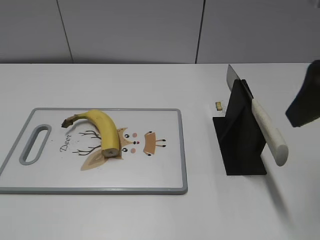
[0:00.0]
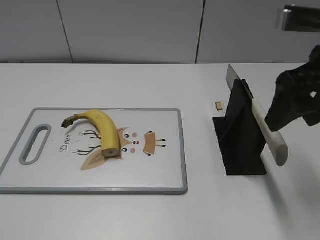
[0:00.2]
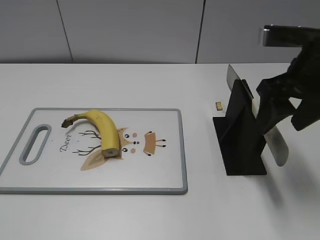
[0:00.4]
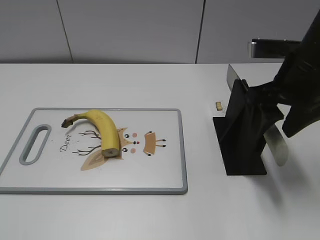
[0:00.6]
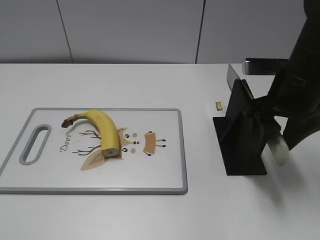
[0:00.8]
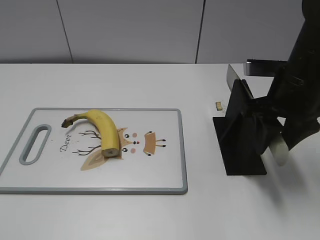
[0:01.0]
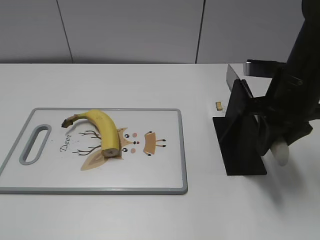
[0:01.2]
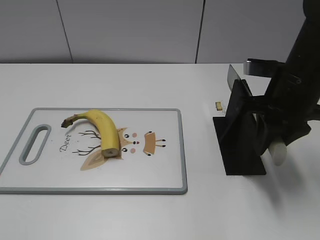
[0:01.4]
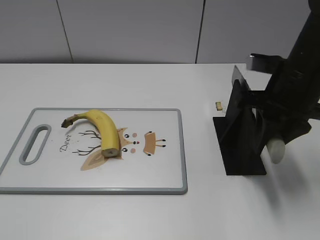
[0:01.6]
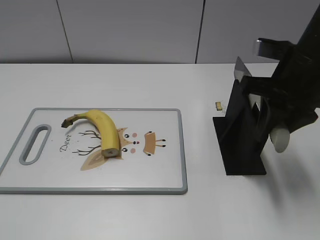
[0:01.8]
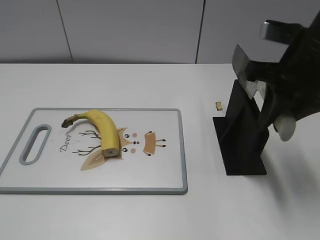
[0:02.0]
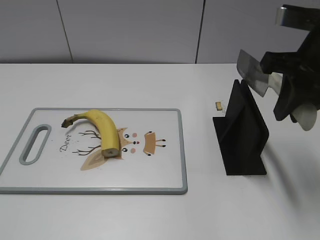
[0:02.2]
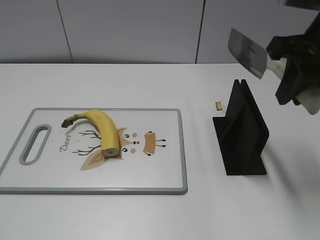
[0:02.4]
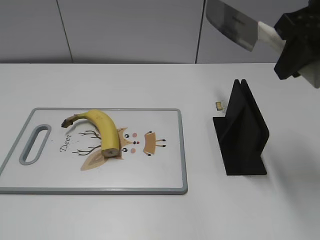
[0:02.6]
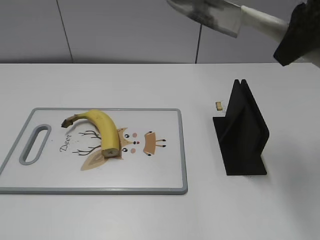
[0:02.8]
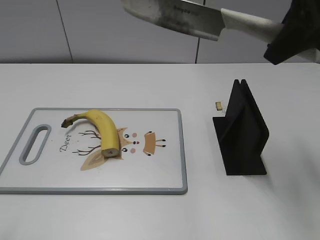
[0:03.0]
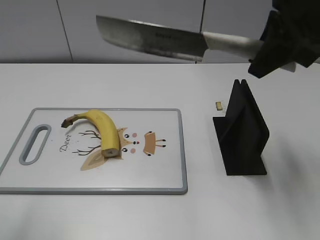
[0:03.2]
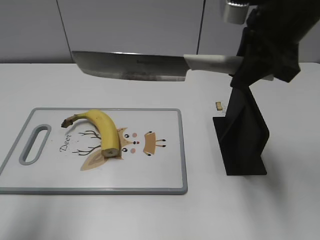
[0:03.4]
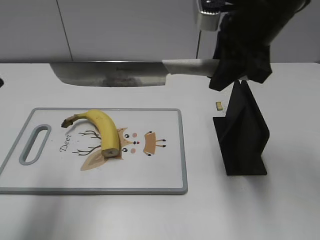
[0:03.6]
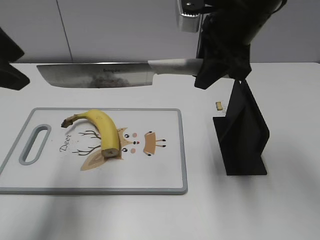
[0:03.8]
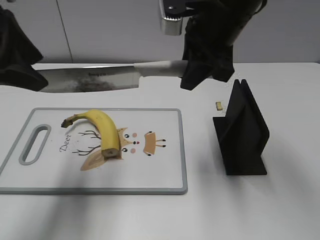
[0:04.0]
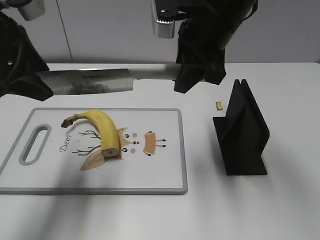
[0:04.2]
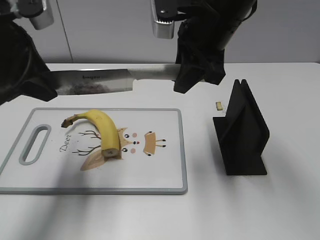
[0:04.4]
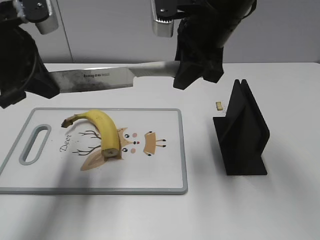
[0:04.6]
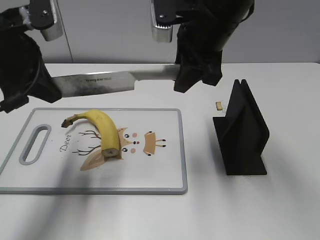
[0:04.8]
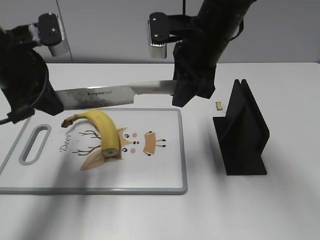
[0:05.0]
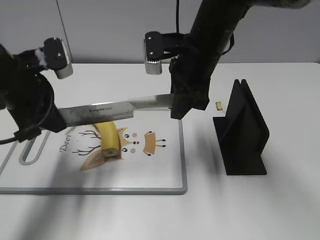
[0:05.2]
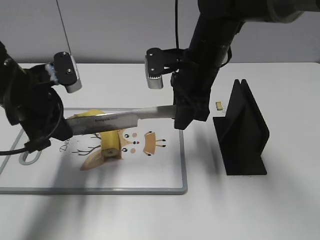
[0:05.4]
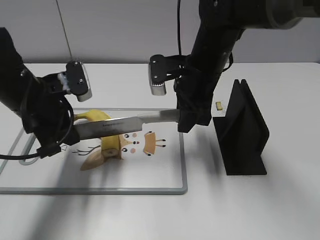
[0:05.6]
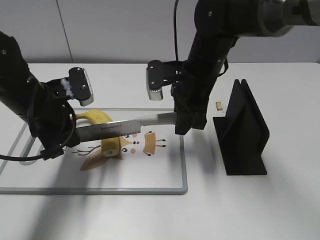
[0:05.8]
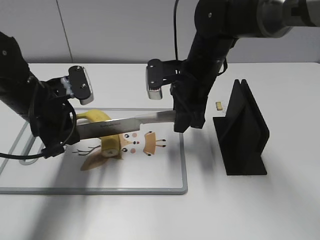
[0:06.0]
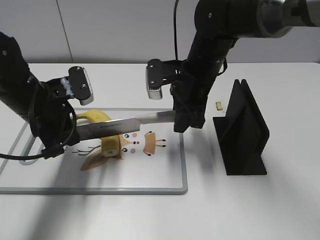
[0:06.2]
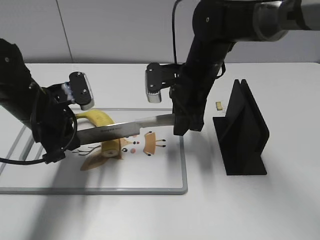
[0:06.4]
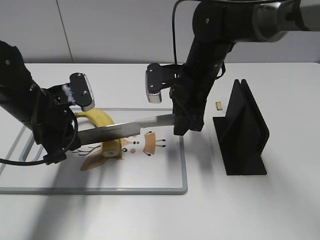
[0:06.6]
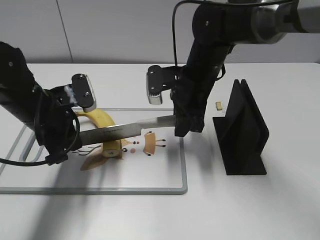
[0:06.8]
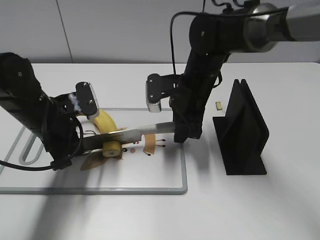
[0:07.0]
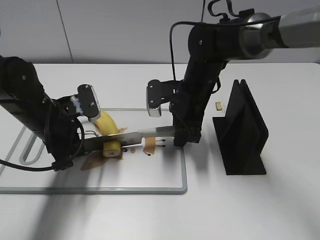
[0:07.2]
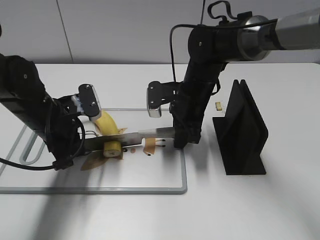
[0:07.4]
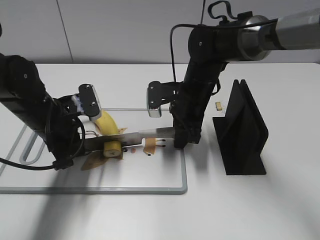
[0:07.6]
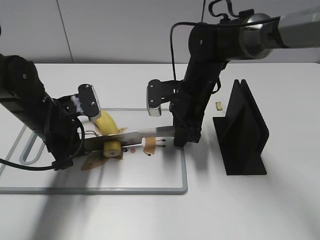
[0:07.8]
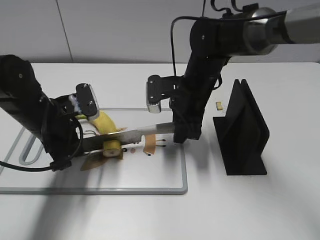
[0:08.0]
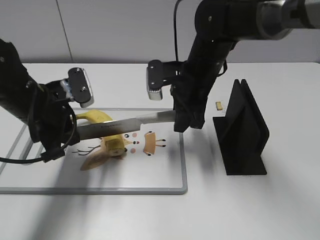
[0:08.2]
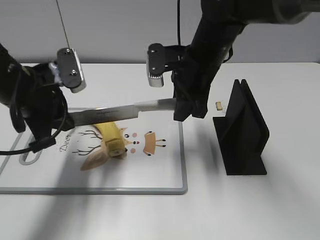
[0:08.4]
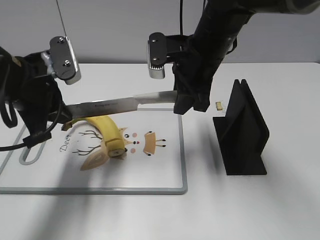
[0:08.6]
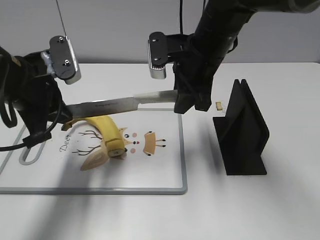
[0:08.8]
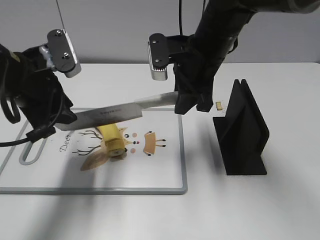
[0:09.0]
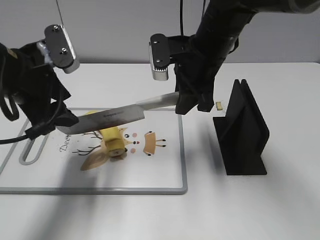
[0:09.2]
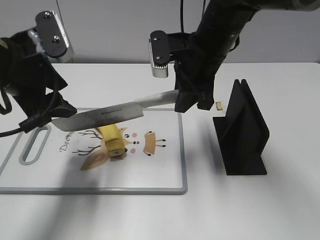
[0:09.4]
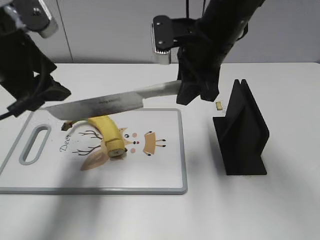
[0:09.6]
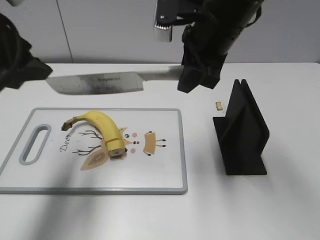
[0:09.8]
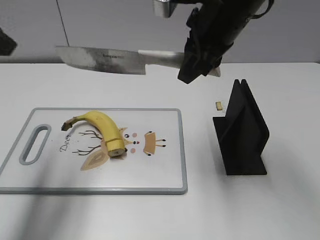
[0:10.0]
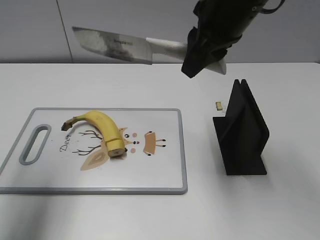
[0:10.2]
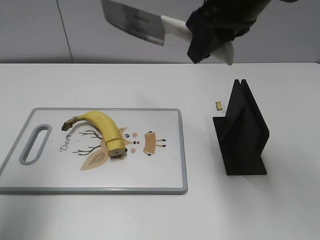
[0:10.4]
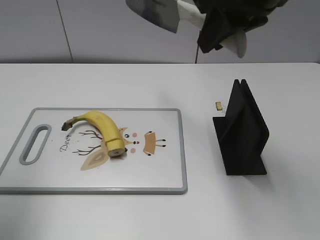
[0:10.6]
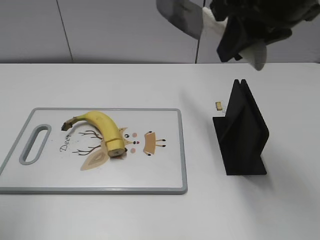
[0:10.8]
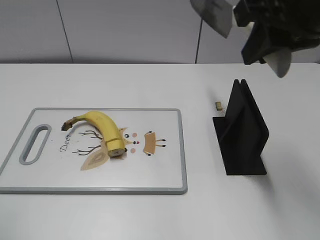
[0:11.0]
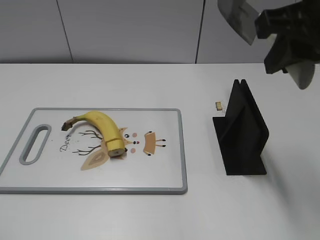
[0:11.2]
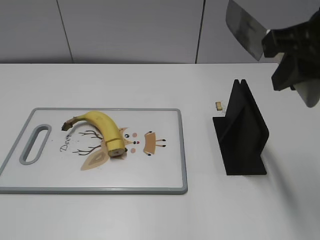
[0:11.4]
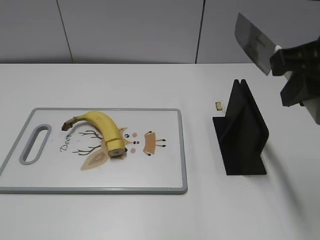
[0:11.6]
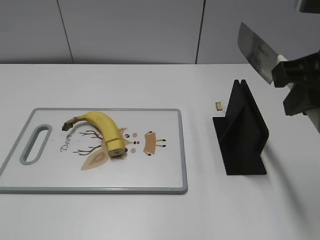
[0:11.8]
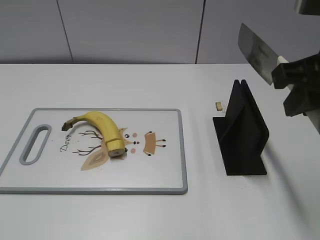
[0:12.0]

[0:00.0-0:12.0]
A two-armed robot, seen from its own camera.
Task of the whole recording: cut banana.
Step, 0:00.0 to 0:02.2: Grab the knife handle with your right hand.
Step, 0:02.6 to 0:06.2: Lift the knife with your right hand.
Step, 0:06.6 to 0:10.2: Cut the banana with your right hand.
Step, 0:10.4 to 0:11.8: Lift the knife with your right hand.
0:00.0 to 0:01.6: The right gripper heads downward and forward, covering roughly 15 cm, and closes its fingers.
0:01.6 to 0:03.0: The right gripper heads upward, covering about 15 cm, while the left gripper travels forward and upward by about 10 cm.
0:03.0 to 0:04.4: The left gripper moves forward, approximately 25 cm; the right gripper shifts about 15 cm to the left, downward and forward.
0:04.4 to 0:06.0: Both grippers travel together downward, roughly 10 cm. The left gripper closes up.
0:06.0 to 0:07.6: The right gripper goes about 5 cm downward.
0:07.6 to 0:09.0: Both grippers move upward, approximately 10 cm. The left gripper opens up.
0:09.0 to 0:10.4: The left gripper moves upward, to the left and backward, some 20 cm, and opens. The right gripper travels upward by roughly 10 cm.
0:10.4 to 0:12.0: The right gripper shifts some 15 cm backward and to the right. Meanwhile the left gripper travels backward by some 25 cm.

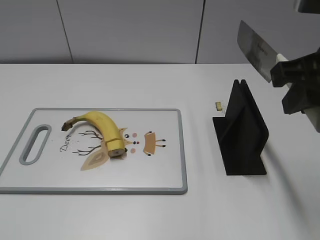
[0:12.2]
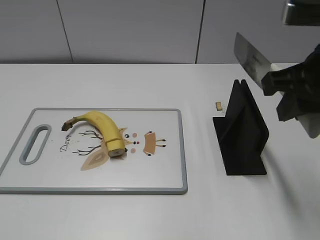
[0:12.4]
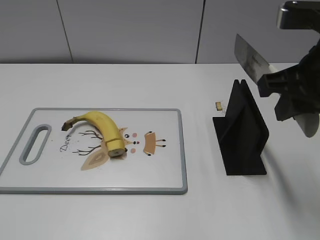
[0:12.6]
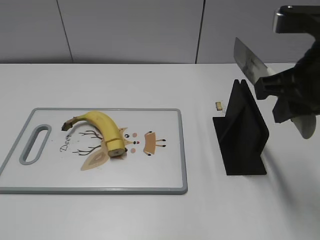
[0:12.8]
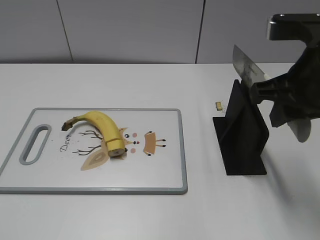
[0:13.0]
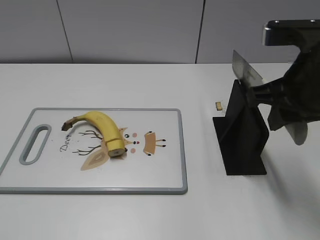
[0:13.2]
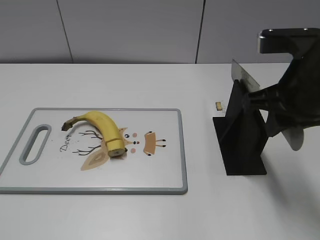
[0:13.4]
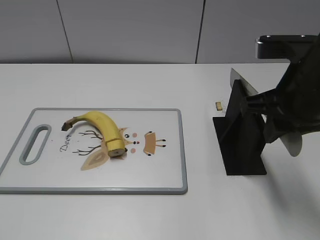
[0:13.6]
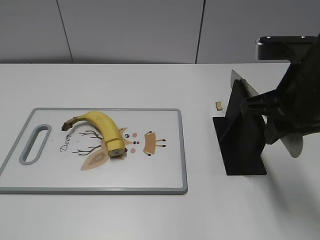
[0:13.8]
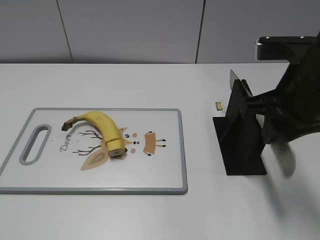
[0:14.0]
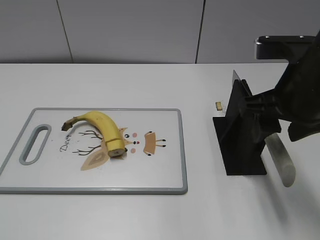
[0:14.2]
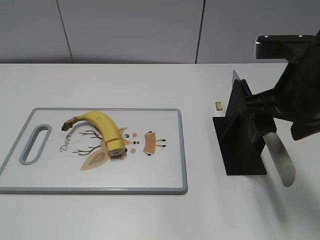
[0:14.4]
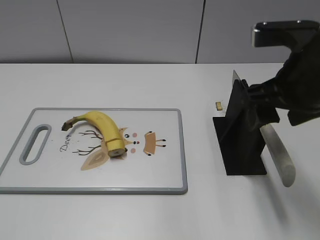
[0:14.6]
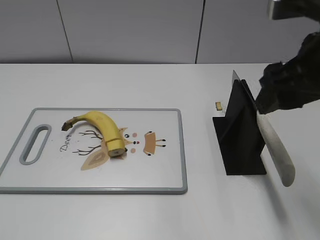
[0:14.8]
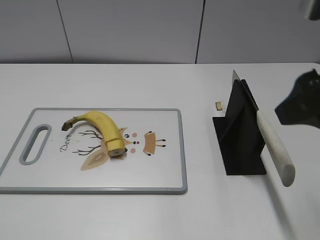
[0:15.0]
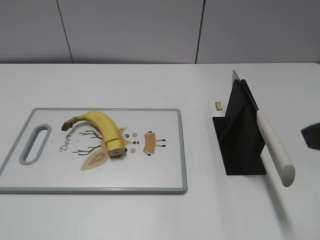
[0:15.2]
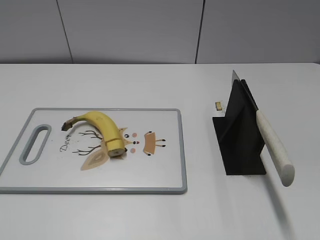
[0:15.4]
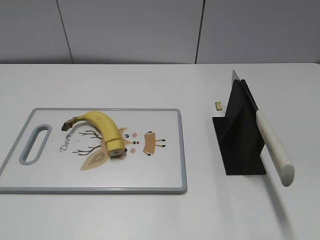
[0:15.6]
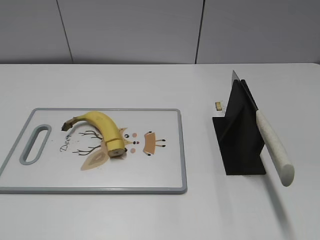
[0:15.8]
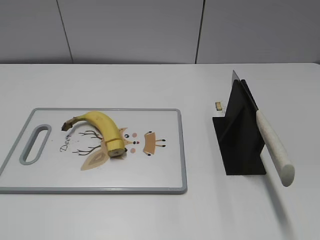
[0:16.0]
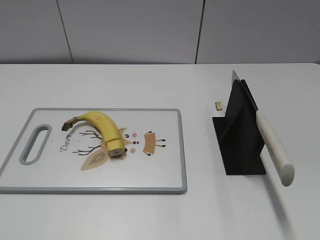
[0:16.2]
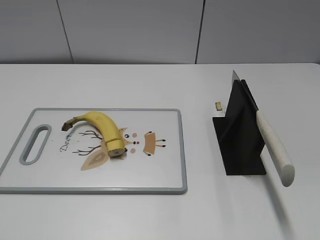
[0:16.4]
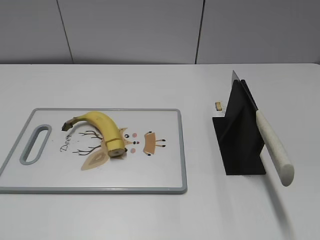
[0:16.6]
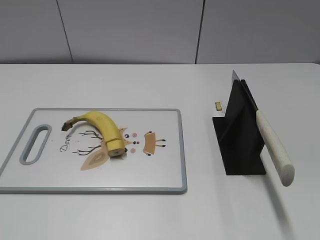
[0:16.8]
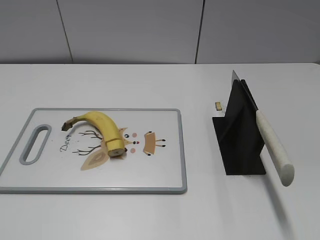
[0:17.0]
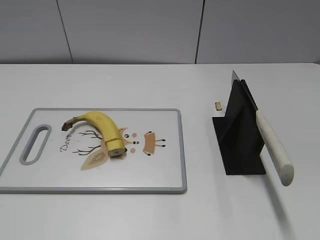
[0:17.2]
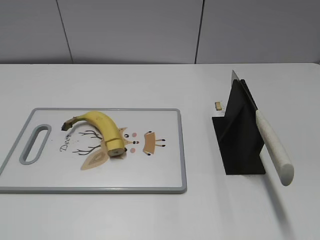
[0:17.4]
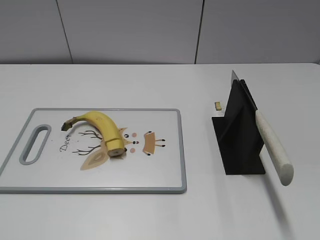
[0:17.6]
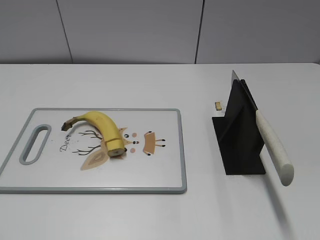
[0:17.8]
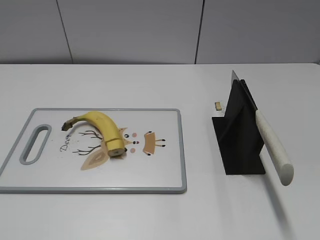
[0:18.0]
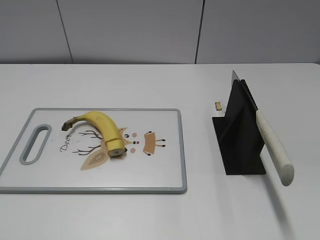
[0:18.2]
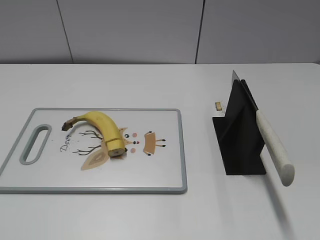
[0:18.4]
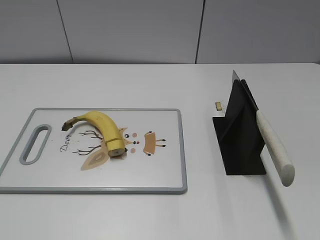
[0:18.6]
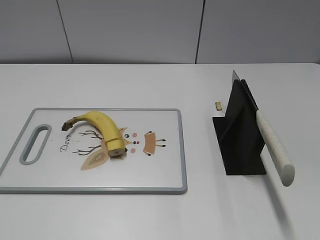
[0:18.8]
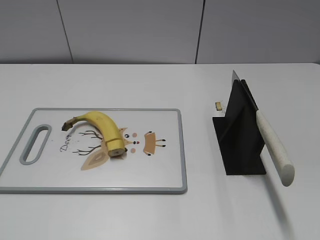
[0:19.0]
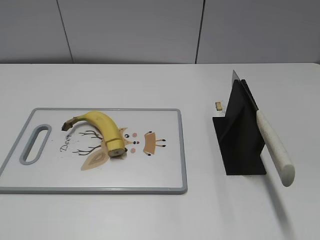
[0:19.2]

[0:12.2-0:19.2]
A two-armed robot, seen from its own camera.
Task of the whole recording: cut banana.
Step, 0:12.2 to 0:18.0: Place the knife on the storage rack with your right hand.
0:12.2 to 0:13.6: The right gripper heads downward, covering some 5 cm.
0:13.6 to 0:15.0: The right gripper heads upward and backward, covering some 10 cm, and opens.
0:15.0 to 0:16.4: The right gripper heads backward and to the right, covering about 20 cm.
